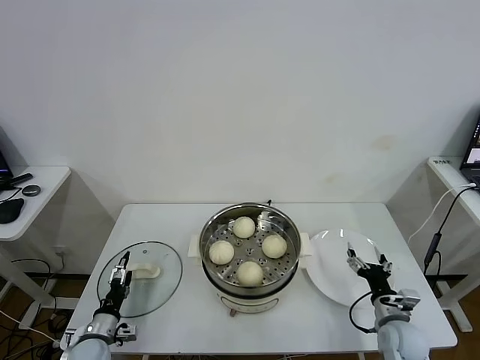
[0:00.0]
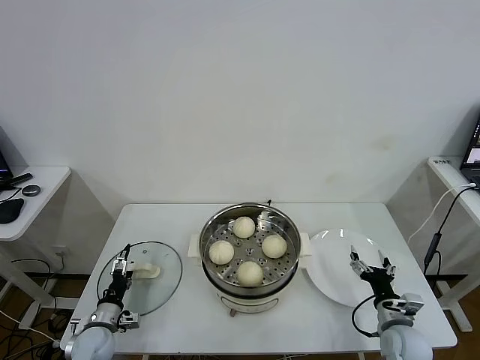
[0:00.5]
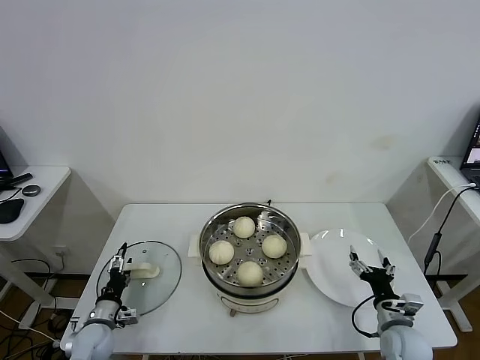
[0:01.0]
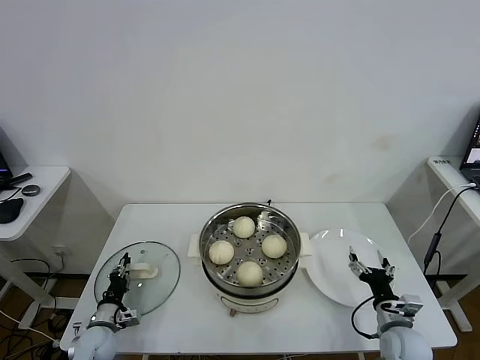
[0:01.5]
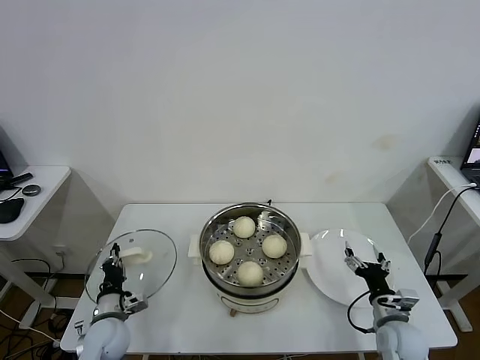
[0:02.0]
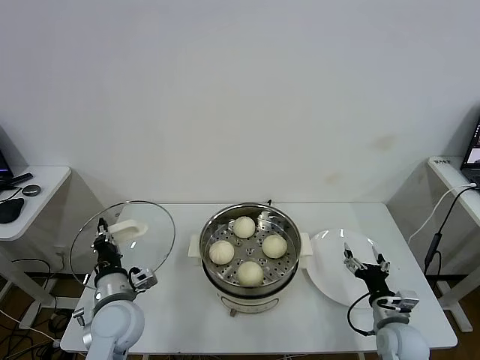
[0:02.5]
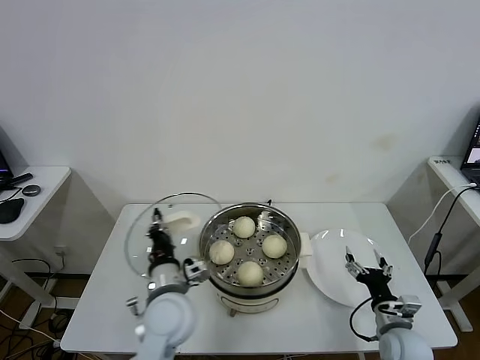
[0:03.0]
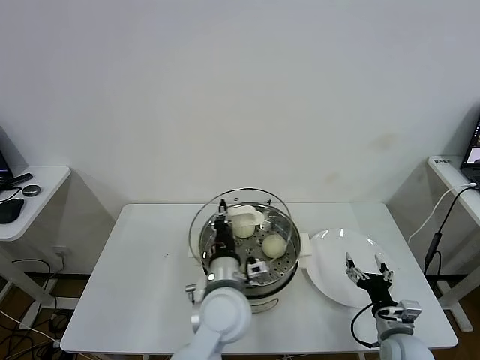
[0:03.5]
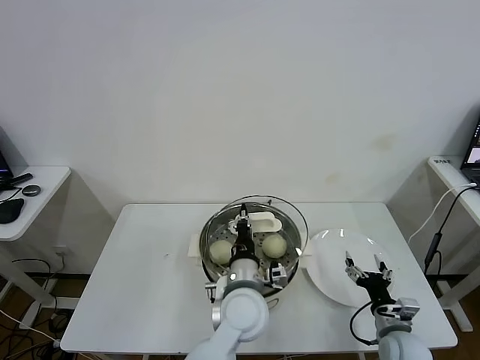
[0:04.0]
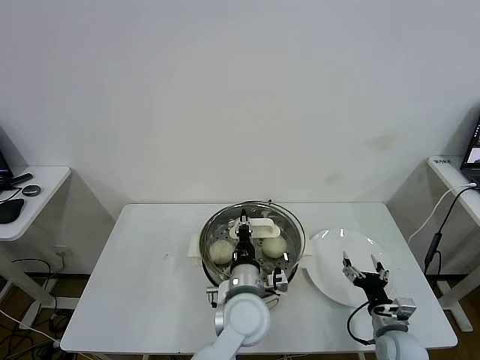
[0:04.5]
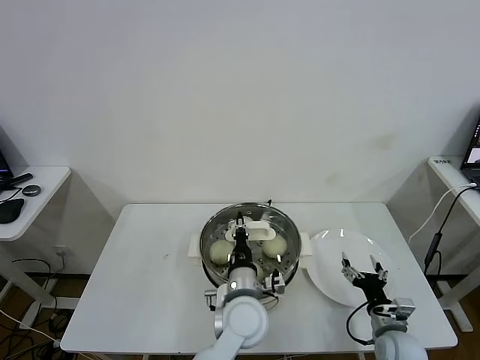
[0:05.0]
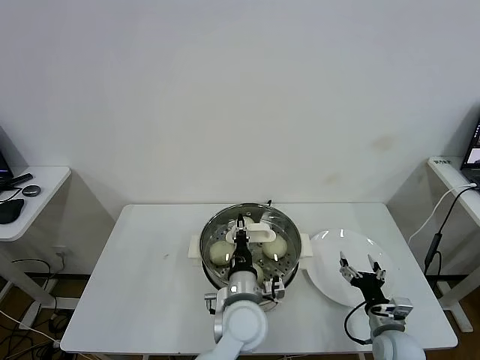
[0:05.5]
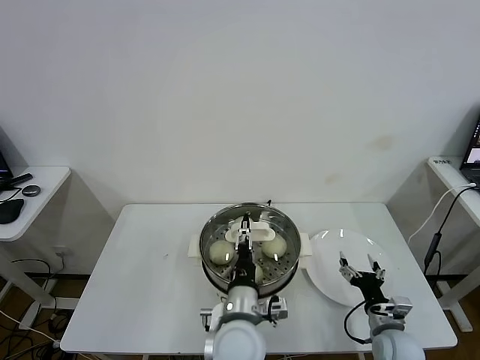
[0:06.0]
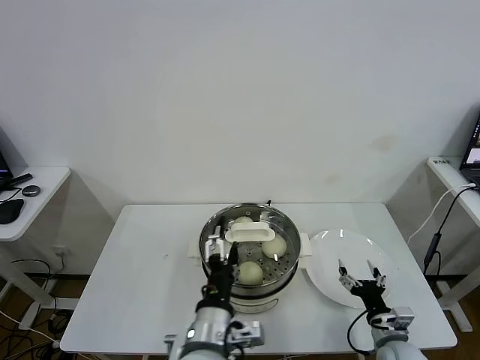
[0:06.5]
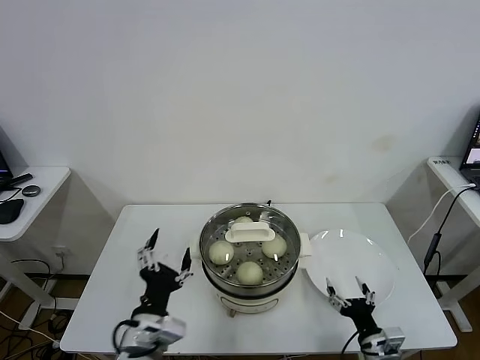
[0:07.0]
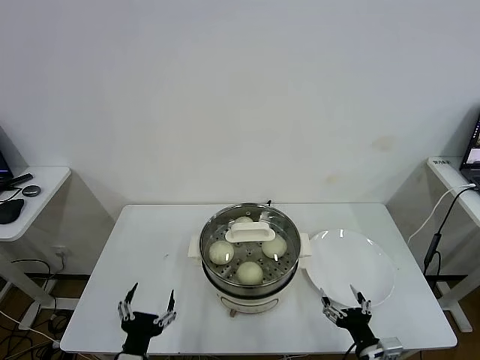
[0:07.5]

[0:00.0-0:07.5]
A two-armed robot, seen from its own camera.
Task of the whole recording: take steamed baozi put them in steamer.
Step, 0:02.0 to 0:06.0: Place the pot lid on the steamer with left gripper.
0:00.0 to 0:02.0: The left gripper ends up approximately 10 cm from where it was, and closes.
0:02.0 to 0:04.0: The left gripper heads to the right and upward, covering some 35 cm.
0:04.0 to 0:05.5: The grippers stay close to where they were, moving slightly.
0:05.5 to 0:07.5: The right gripper shifts some 10 cm backward; the left gripper heads to the left and backward, covering approximately 25 cm, and opens.

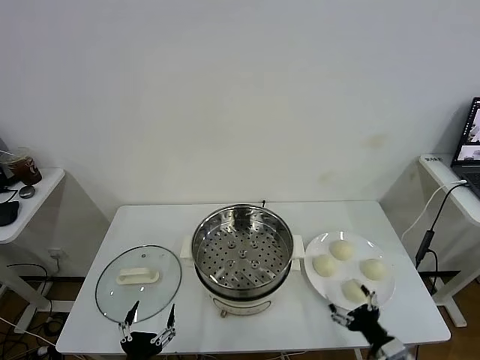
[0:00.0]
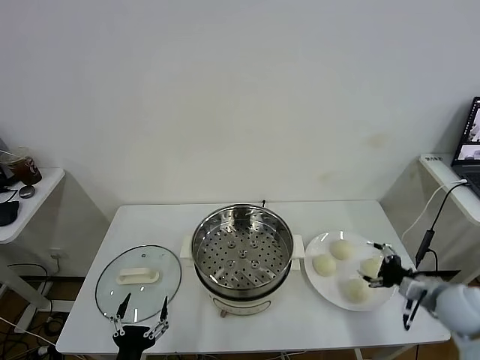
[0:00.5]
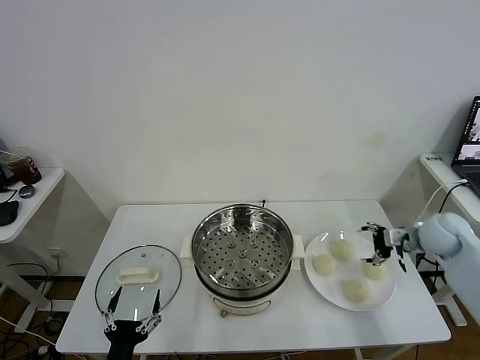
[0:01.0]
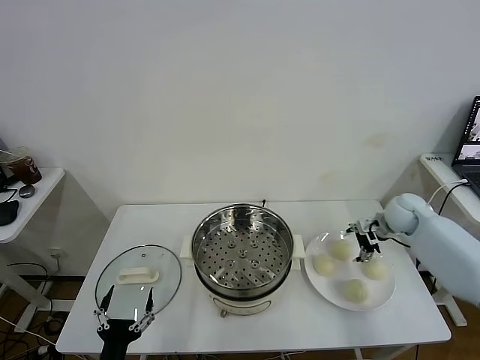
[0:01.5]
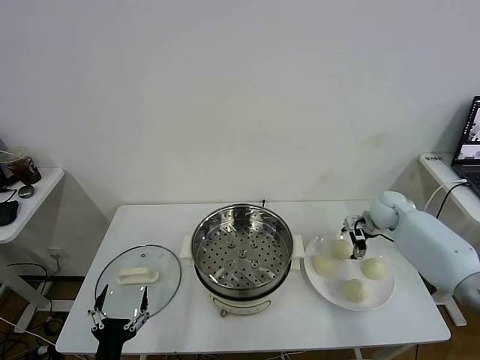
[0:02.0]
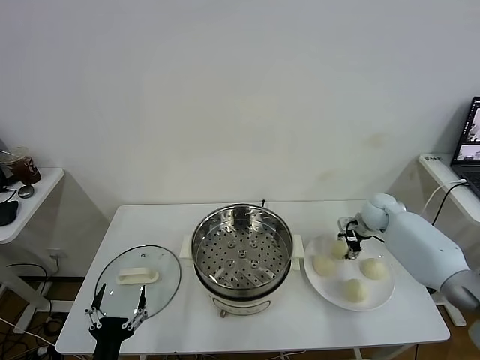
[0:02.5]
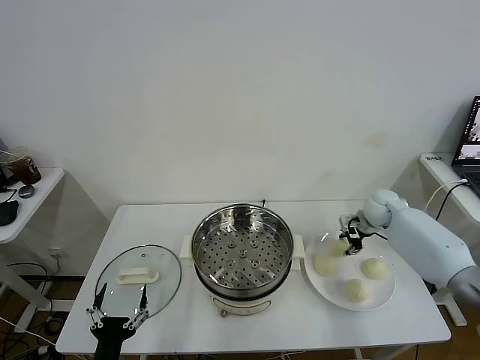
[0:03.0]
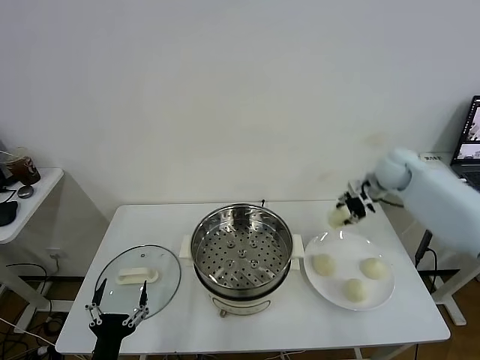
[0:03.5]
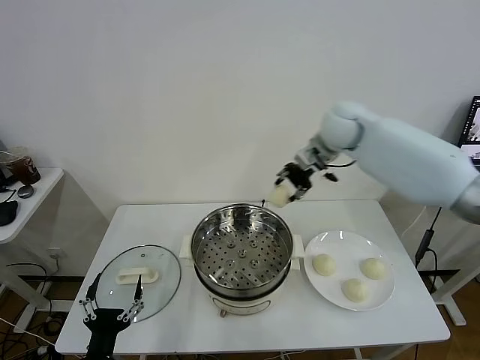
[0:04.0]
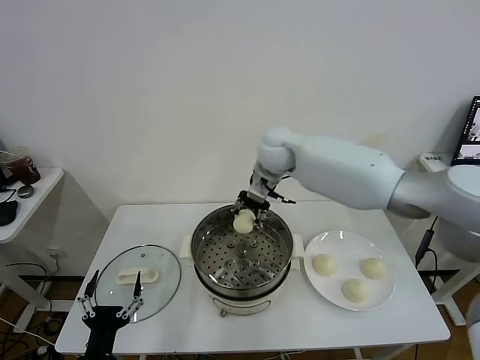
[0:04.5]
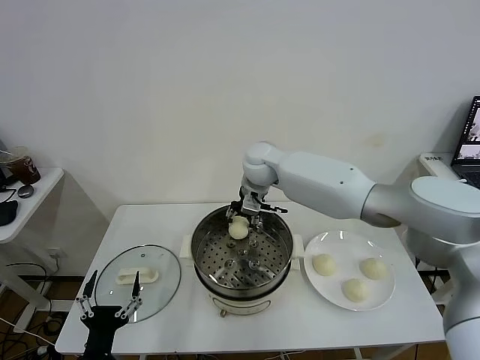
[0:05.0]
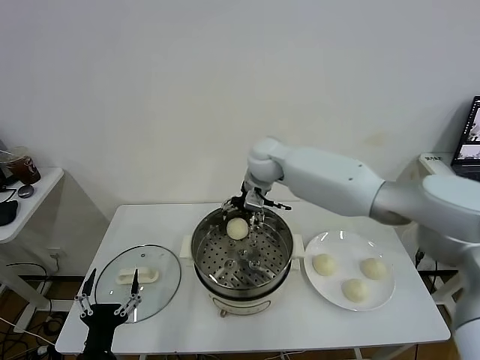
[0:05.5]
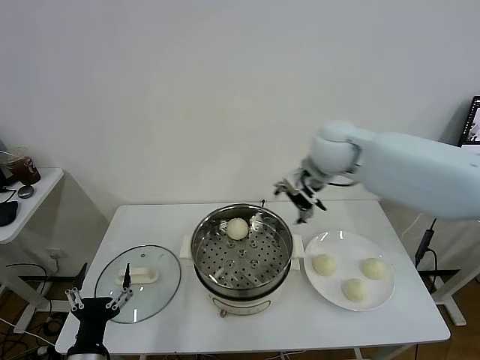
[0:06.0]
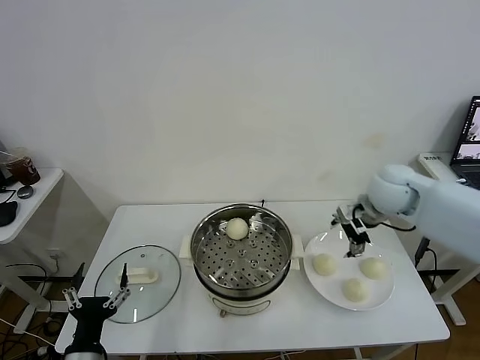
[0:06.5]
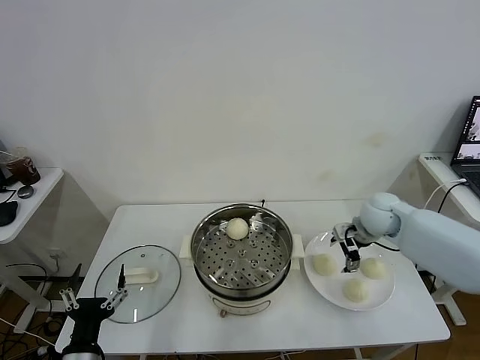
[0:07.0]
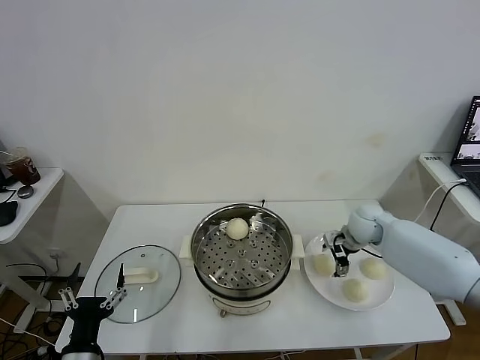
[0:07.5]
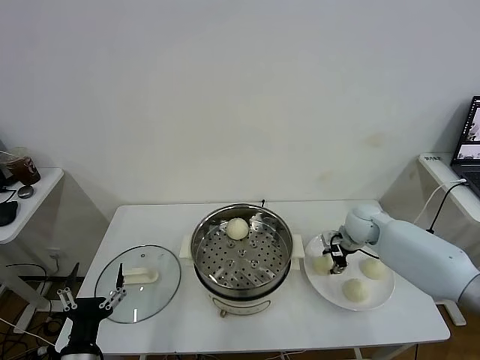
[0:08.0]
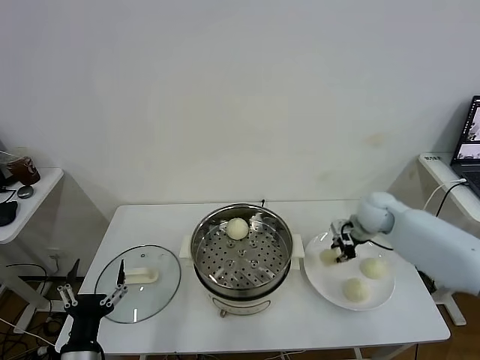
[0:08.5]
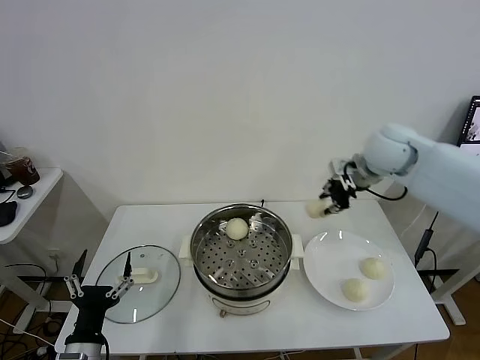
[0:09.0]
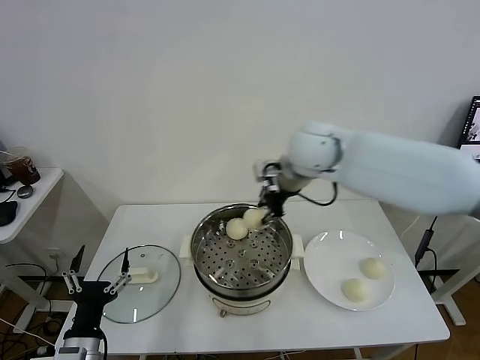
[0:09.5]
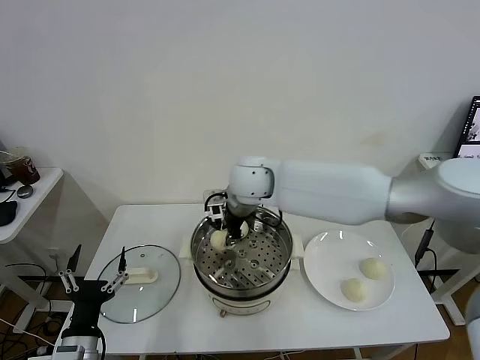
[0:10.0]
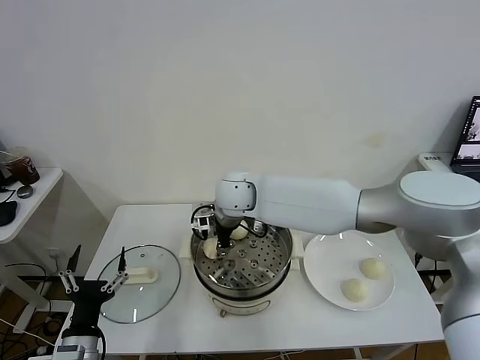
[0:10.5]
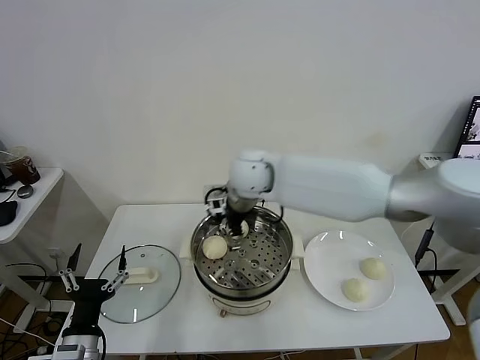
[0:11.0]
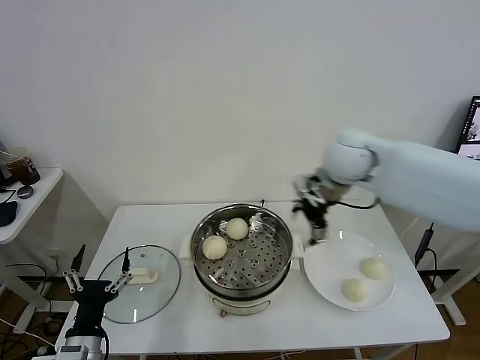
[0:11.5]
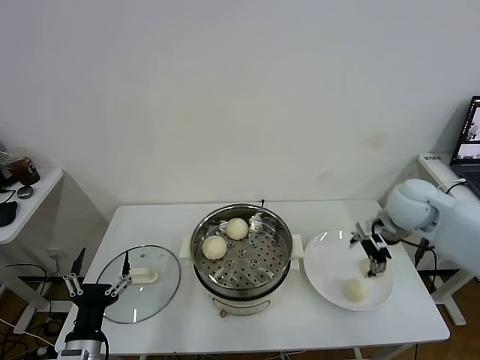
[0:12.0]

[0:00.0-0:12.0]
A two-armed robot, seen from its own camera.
Task of the whole recording: take steamed baozi put them in steamer.
Step, 0:00.0 to 0:02.5: Grasp the baozi in the plate with right gripper.
Step, 0:03.0 to 0:05.5: Place the baozi on the steamer with right gripper.
Step, 0:06.0 to 0:08.0: Grasp the baozi in the plate with right gripper.
Step, 0:08.5 to 0:10.5: Place the baozi on the steamer with right gripper.
0:02.0 to 0:04.0: The right gripper shifts about 30 cm upward and to the left, and closes its fingers.
0:04.0 to 0:06.0: The right gripper goes some 10 cm backward, travels to the left and back again, about 15 cm each way, and opens up.
0:06.0 to 0:08.0: The right gripper is displaced downward and to the right by some 25 cm, and closes its fingers.
0:08.0 to 0:10.0: The right gripper goes roughly 35 cm to the left and upward, and closes up.
0:10.0 to 0:12.0: The right gripper heads to the right, covering roughly 35 cm, and opens its fingers.

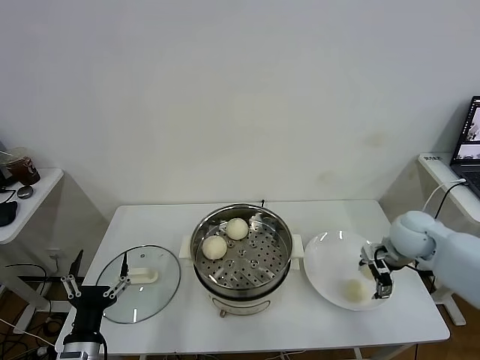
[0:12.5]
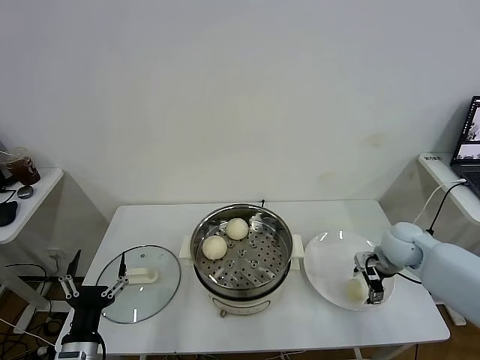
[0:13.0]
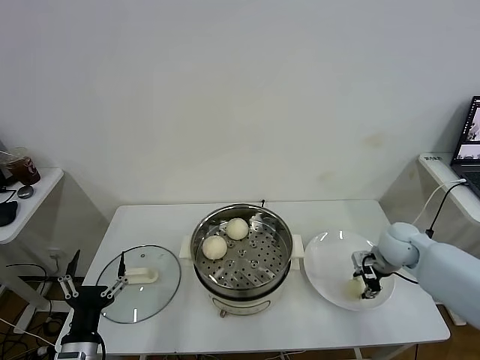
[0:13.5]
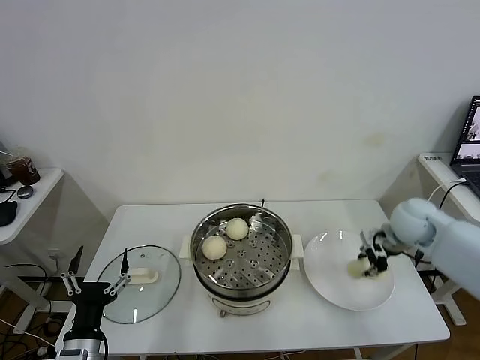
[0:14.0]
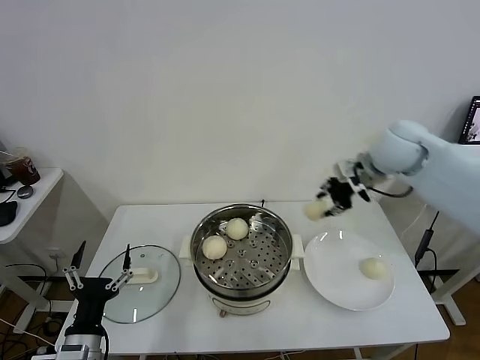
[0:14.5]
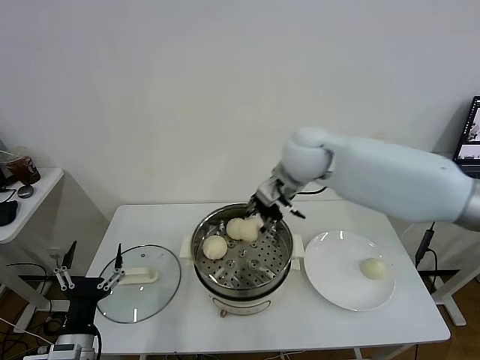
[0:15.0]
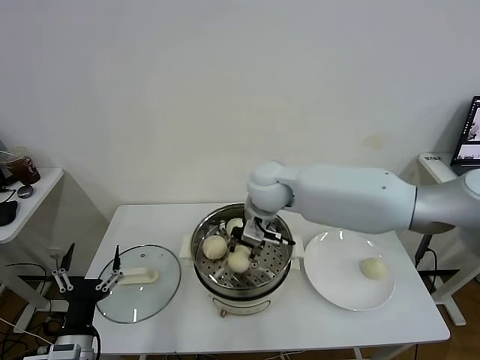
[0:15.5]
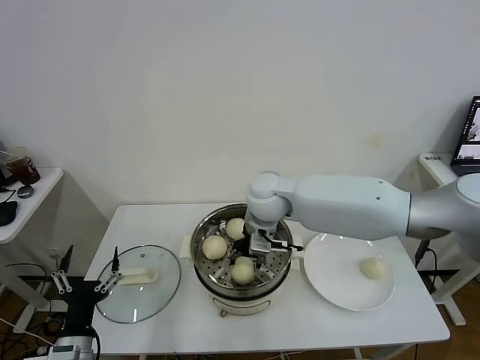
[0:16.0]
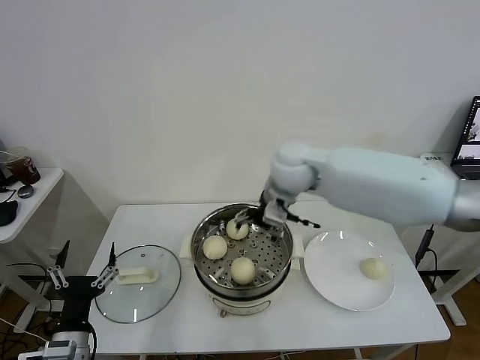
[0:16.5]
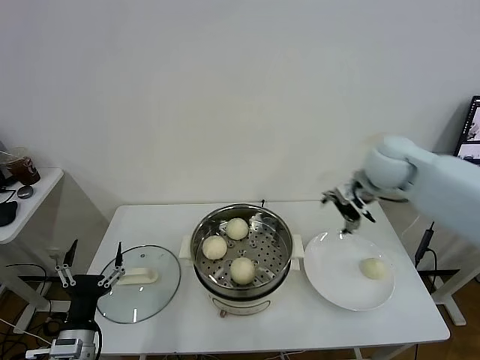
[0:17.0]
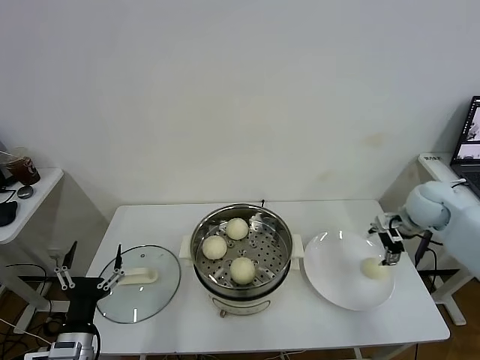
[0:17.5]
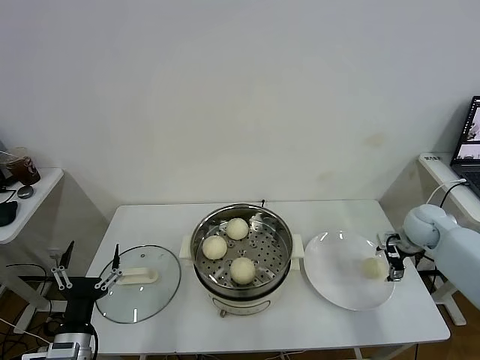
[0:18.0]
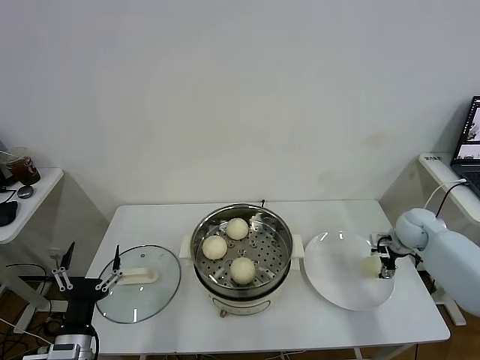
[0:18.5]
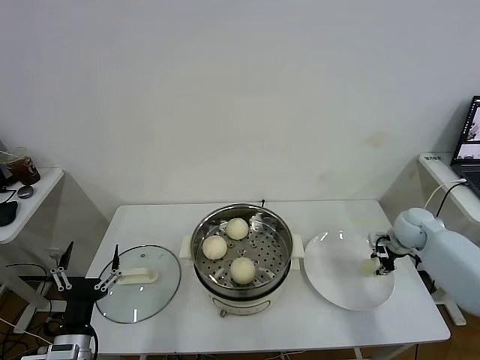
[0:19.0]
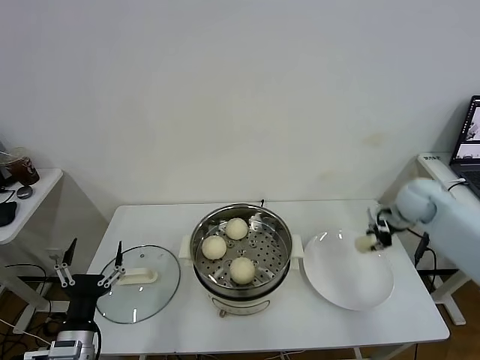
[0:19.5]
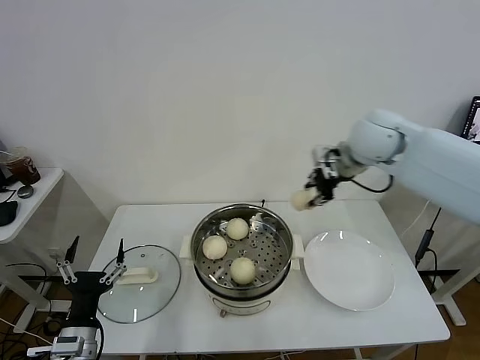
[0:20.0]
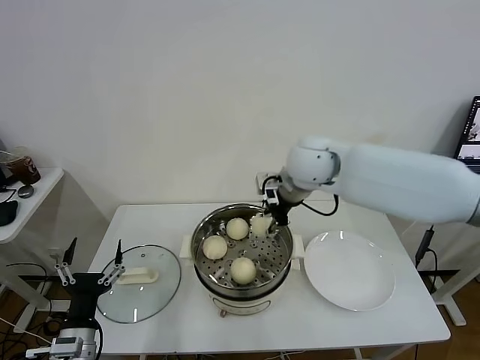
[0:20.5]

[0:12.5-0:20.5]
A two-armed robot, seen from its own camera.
Task of the whole recording: take steamed baozi put them in steamer.
Step, 0:14.0 to 0:16.0: Place the baozi on the steamer with right gripper.
Step, 0:16.5 to 0:18.5: Grasp the baozi in the plate with right gripper.
0:12.5 to 0:14.5: The right gripper is displaced upward and to the left by some 20 cm, and closes up.
0:14.5 to 0:16.5: The right gripper moves to the left, approximately 20 cm, and opens.
0:16.5 to 0:18.5: The right gripper is displaced to the right and downward by about 40 cm.
0:18.5 to 0:20.5: The right gripper moves to the left and upward, about 35 cm, and closes up.
